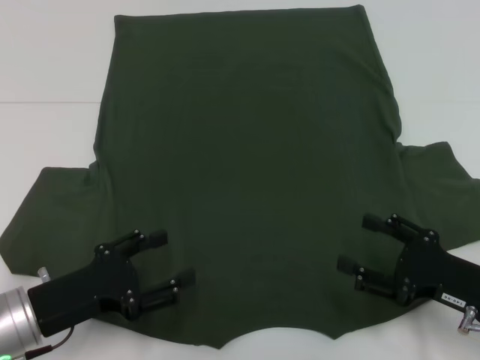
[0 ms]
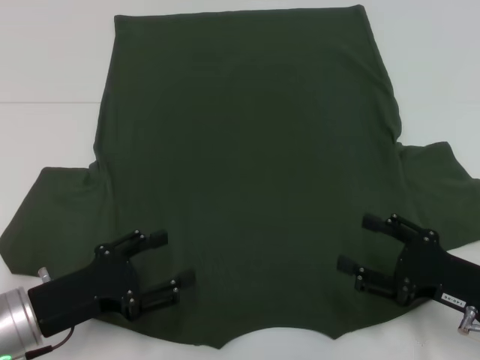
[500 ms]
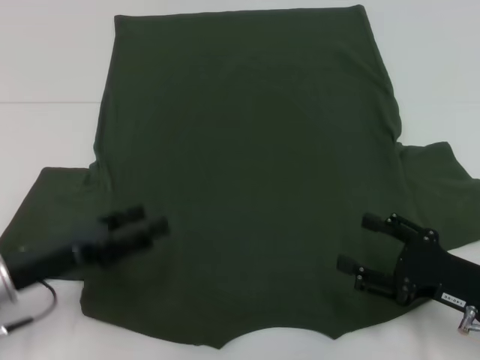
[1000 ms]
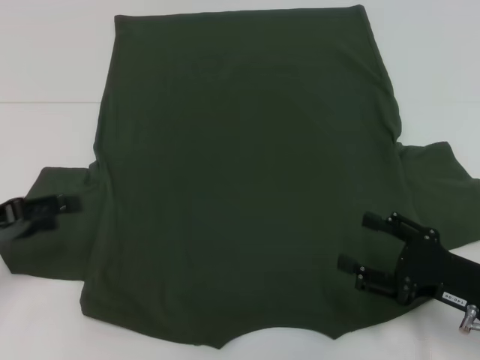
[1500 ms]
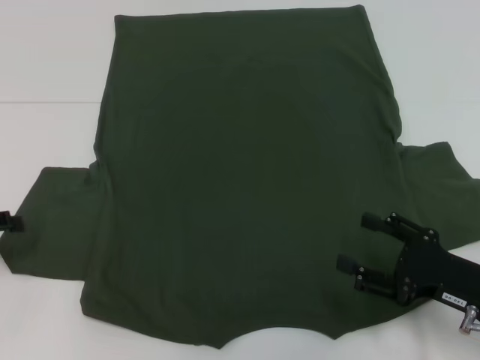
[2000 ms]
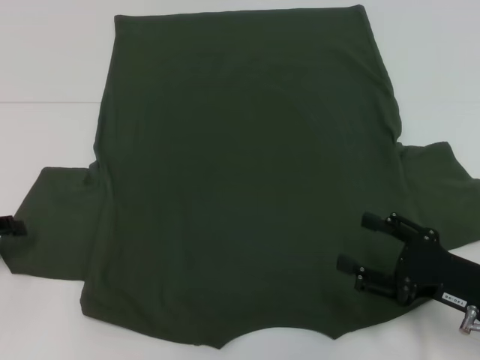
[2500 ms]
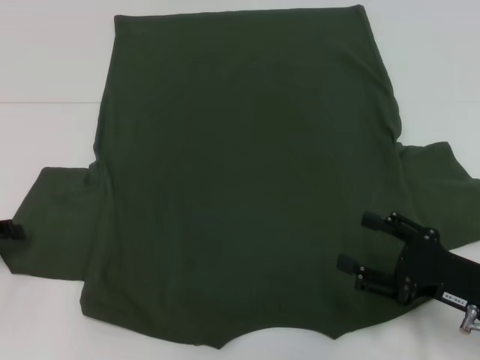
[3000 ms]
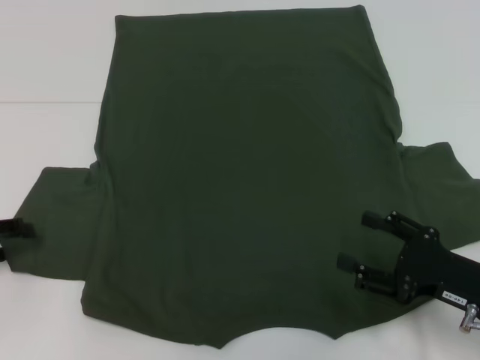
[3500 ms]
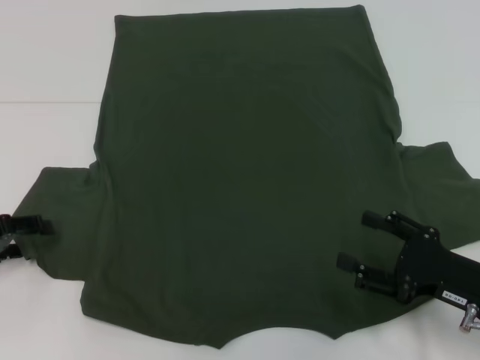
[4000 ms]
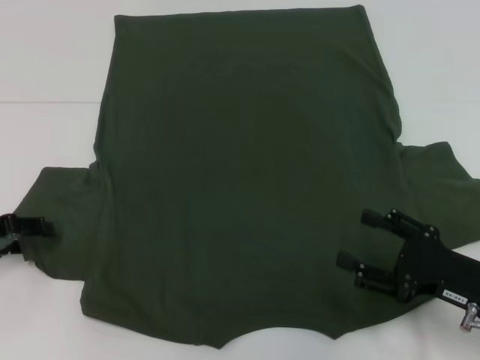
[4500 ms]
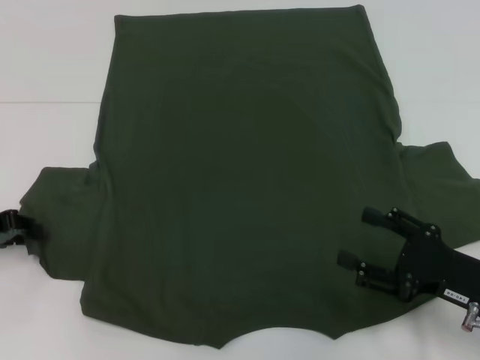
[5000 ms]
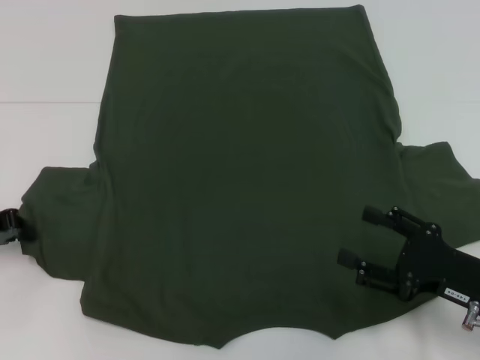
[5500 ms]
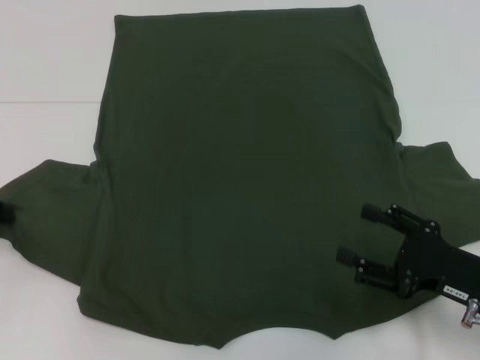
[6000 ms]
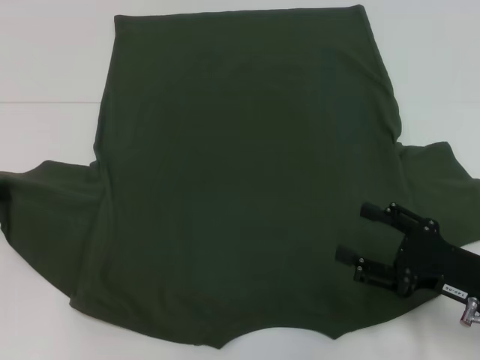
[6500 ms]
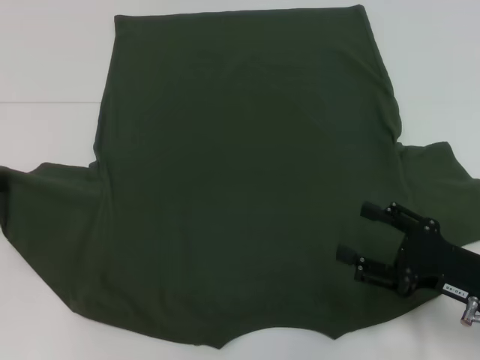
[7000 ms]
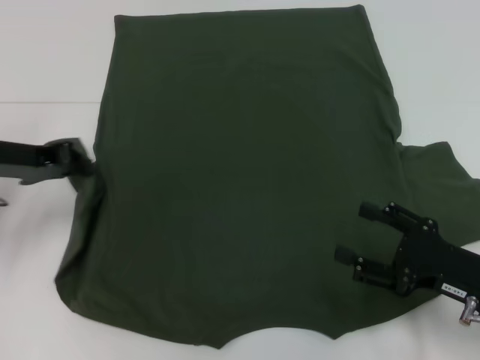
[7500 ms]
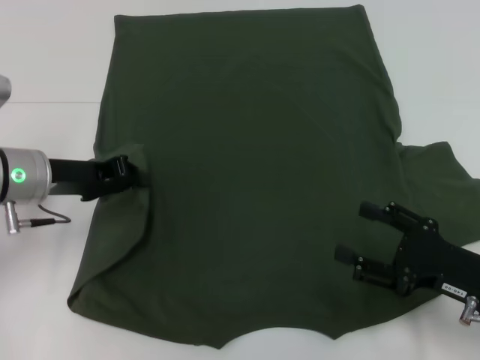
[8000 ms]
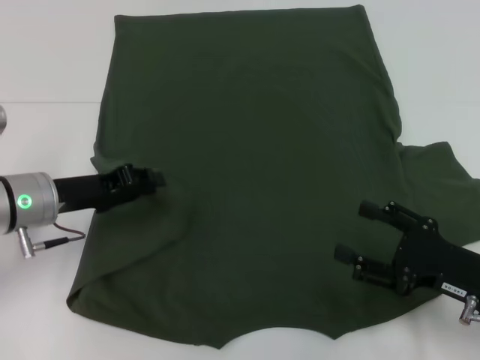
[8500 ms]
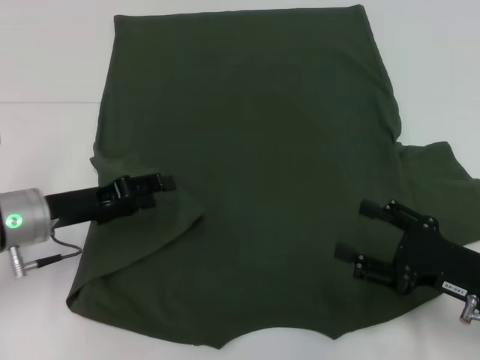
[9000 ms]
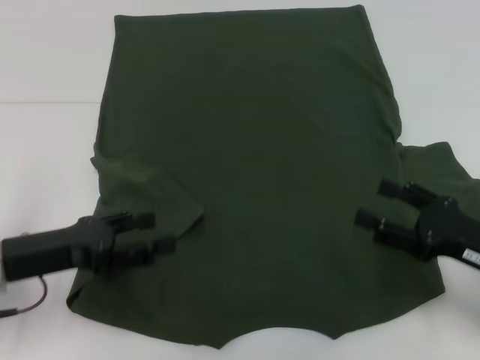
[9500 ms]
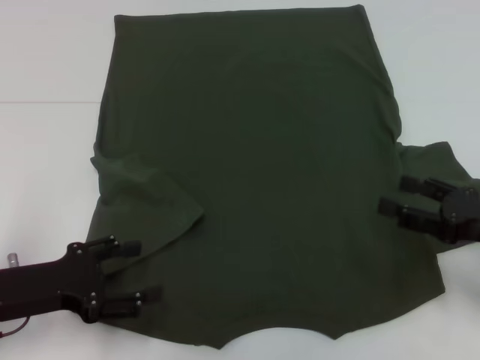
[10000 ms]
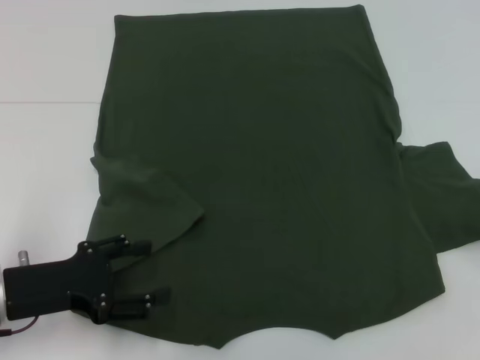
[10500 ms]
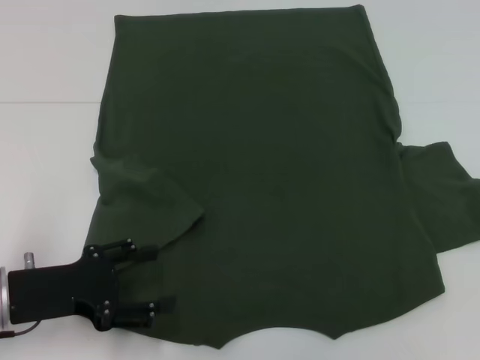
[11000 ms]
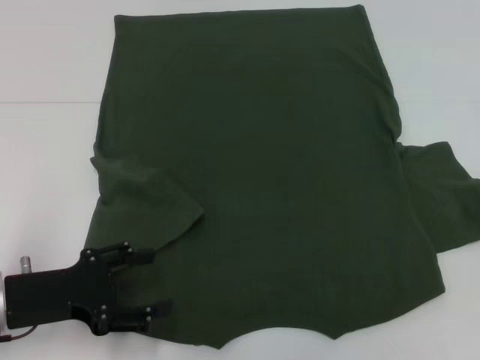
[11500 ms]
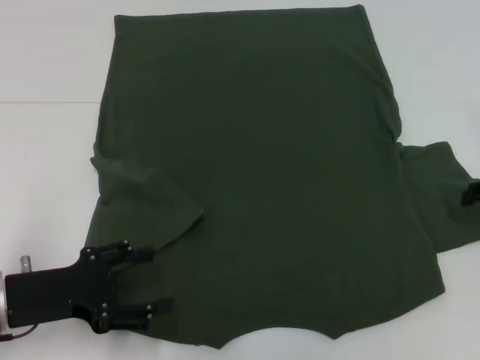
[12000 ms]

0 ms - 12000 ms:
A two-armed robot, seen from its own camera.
Step, 0 ms - 8500 ms: Fold the bottom left sleeve with your left hand.
0 ms - 2000 ms: The left gripper moves to the left, upward and forward, some 15 cm.
2000 ms - 4000 ms: The grippers stay close to where they were, moving slightly.
4000 ms - 6000 ms: The left gripper closes up.
6000 ms - 8000 ms: The left gripper shifts about 10 cm to the right.
8000 ms - 10000 ms: The left gripper travels backward by about 10 cm, and opens its fingers; the right gripper shifts by approximately 5 cm.
10000 ms - 12000 ms: The right gripper is displaced forward and to the right by approximately 10 cm.

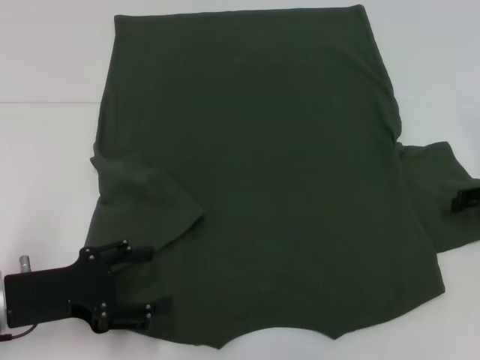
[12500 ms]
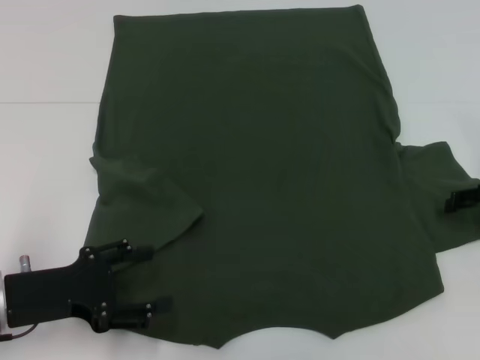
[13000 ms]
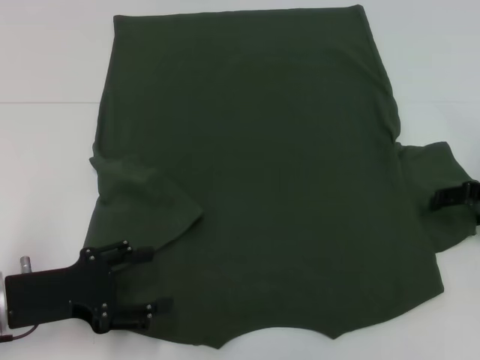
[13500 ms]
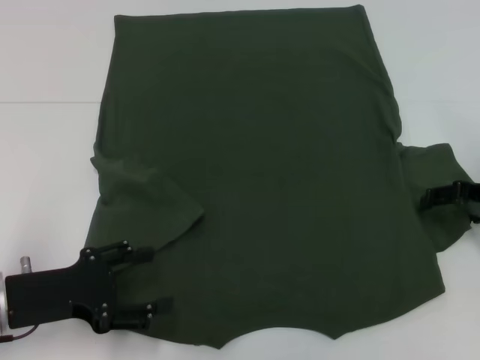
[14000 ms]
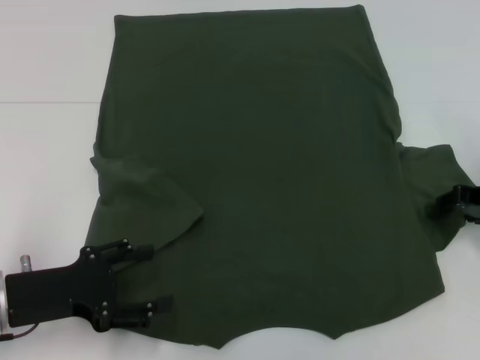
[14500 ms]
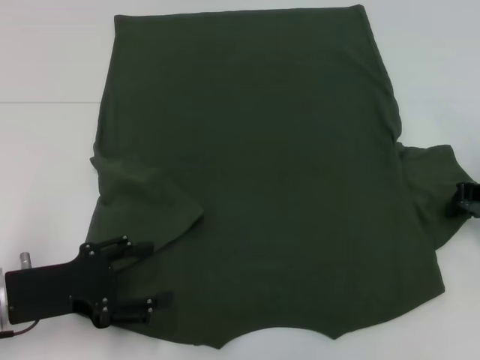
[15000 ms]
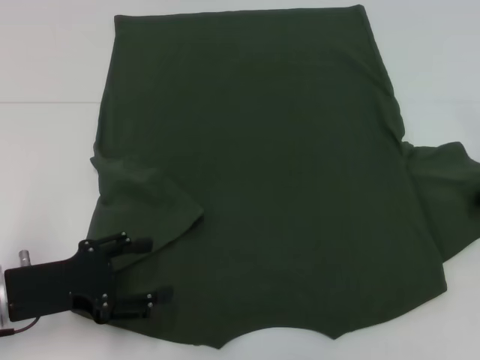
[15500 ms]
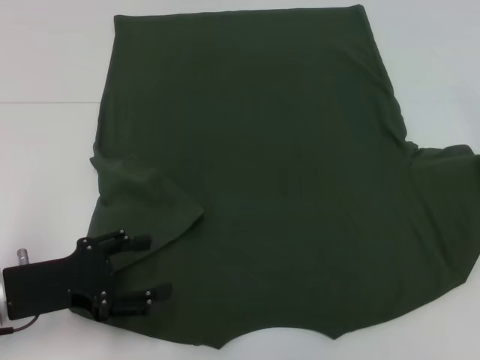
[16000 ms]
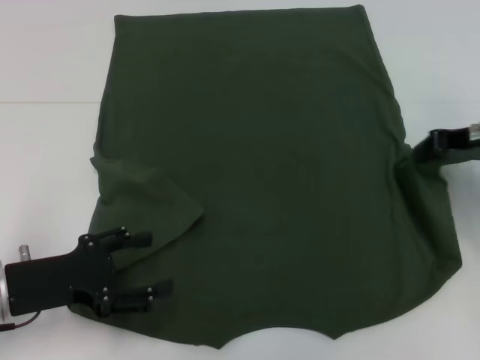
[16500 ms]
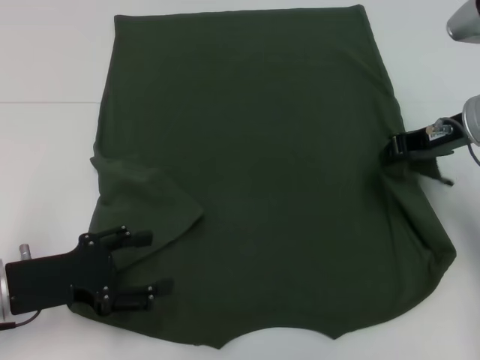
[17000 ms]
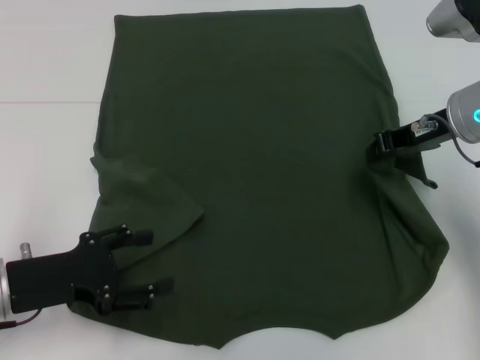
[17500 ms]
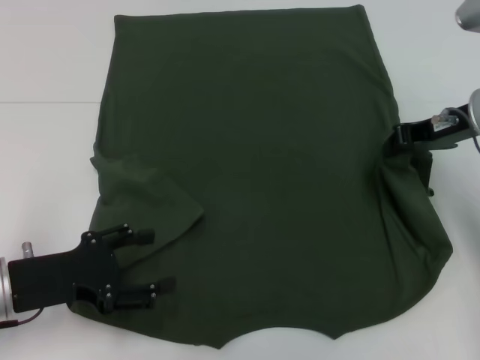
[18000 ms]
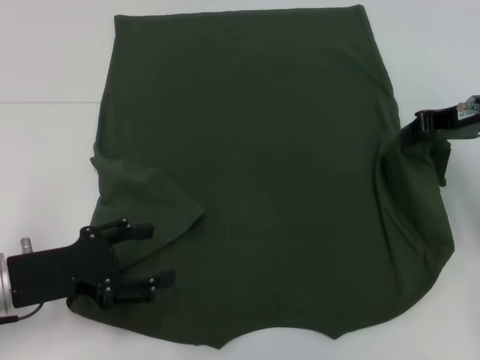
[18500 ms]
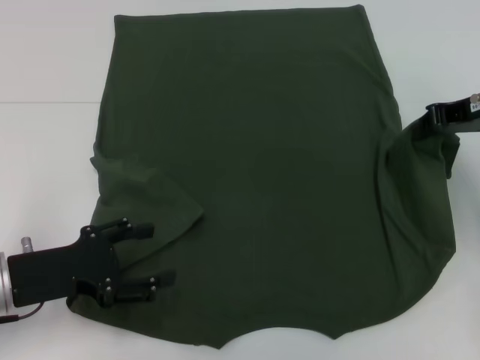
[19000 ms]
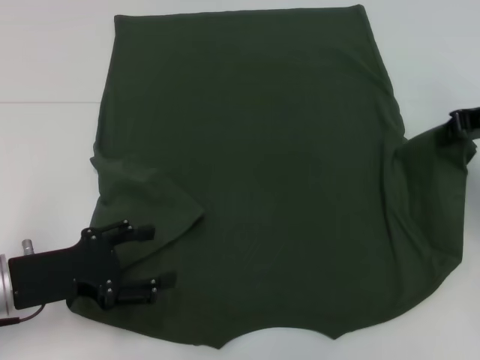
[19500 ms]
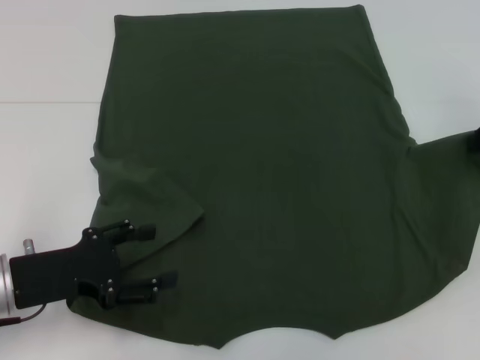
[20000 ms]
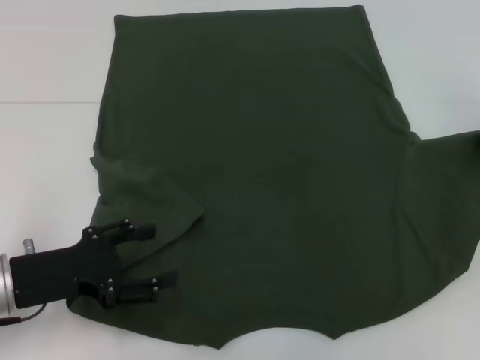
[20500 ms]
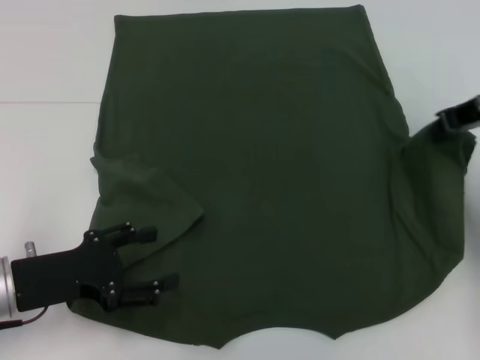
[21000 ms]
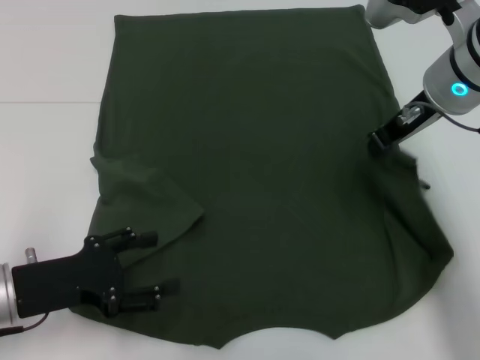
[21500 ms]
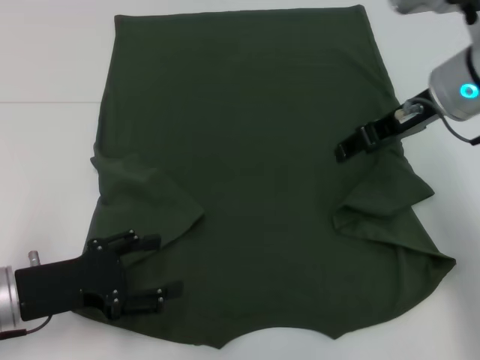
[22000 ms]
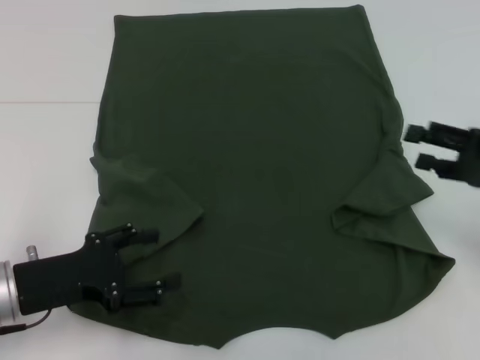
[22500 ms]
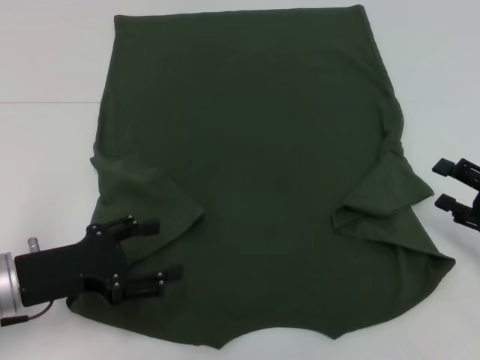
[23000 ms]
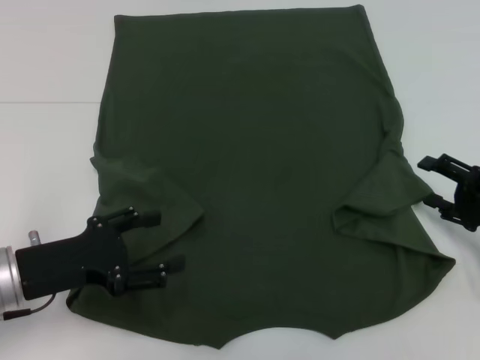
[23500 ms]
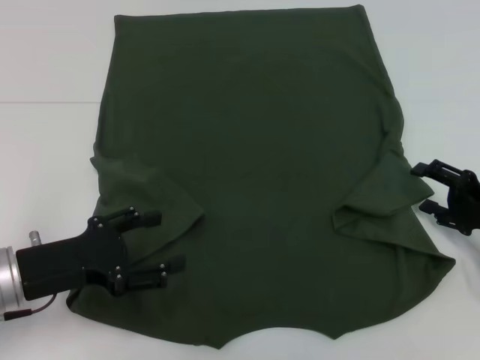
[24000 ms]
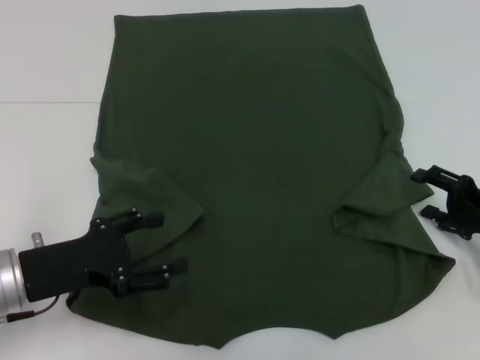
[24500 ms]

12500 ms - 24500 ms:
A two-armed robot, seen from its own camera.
12500 ms - 14500 ms: The grippers move only a little.
14500 ms - 16500 ms: The right gripper travels upward by some 5 cm, and closes up.
18500 ms - 20500 ms: The right gripper shifts approximately 5 cm to the right.
20500 ms - 22500 ms: The right gripper moves downward and backward, roughly 10 cm, goes to the left and returns, some 15 cm each way, and opens.
22500 ms - 24500 ms: The right gripper travels downward by about 10 cm.

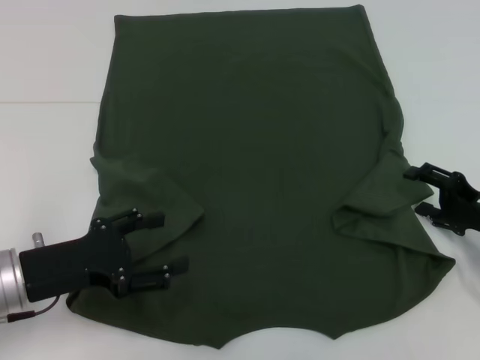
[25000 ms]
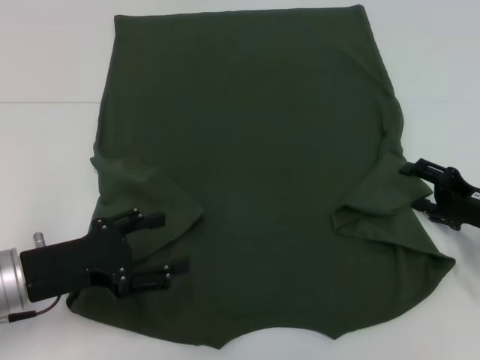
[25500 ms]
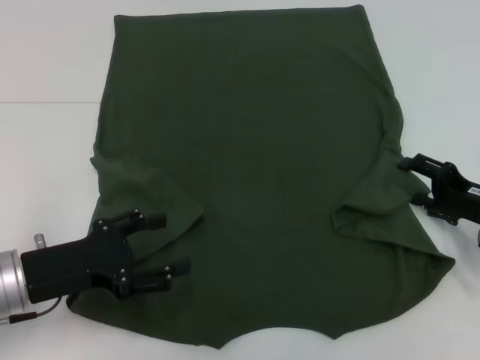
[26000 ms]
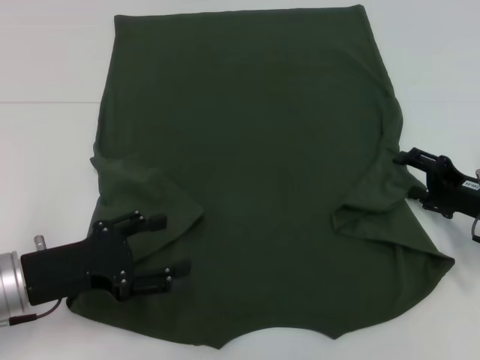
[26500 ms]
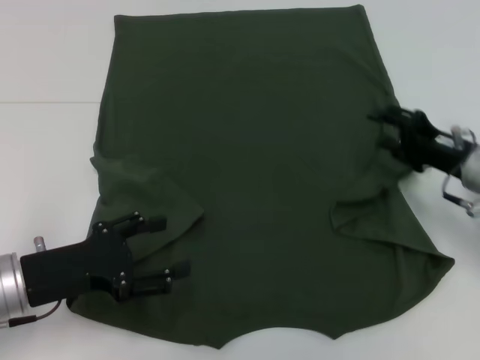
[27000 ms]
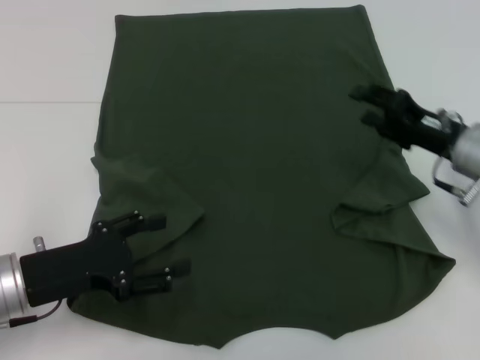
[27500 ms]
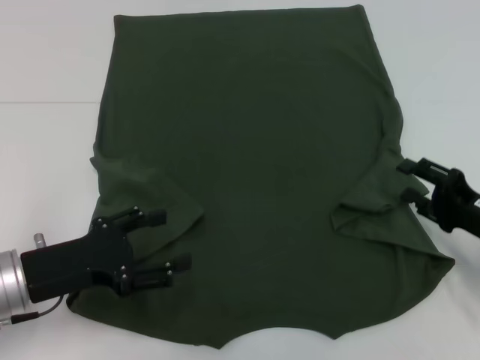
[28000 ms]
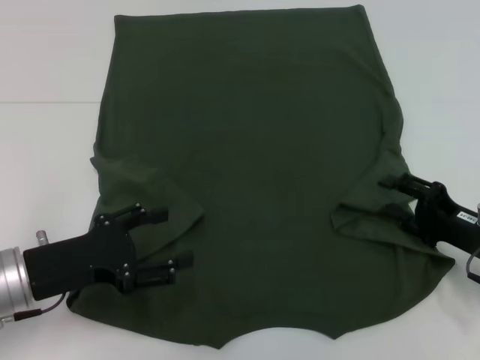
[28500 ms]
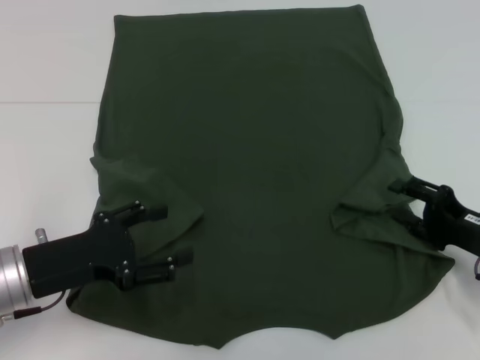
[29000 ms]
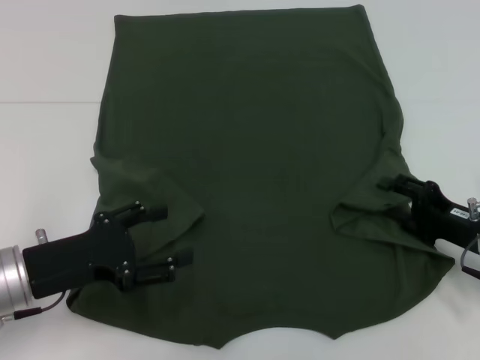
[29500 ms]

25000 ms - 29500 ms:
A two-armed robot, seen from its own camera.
25000 ms - 27000 ms: The right gripper shifts by some 10 cm.
27000 ms - 29500 ms: The right gripper heads backward, covering some 5 cm.
